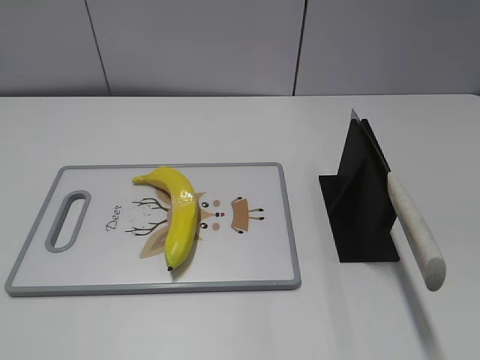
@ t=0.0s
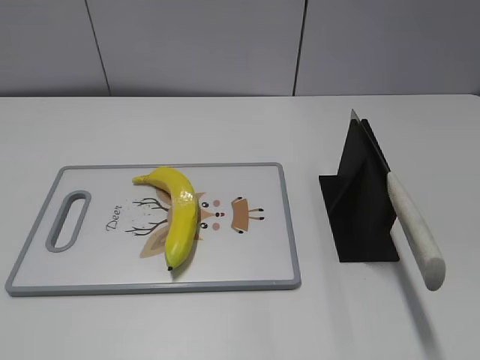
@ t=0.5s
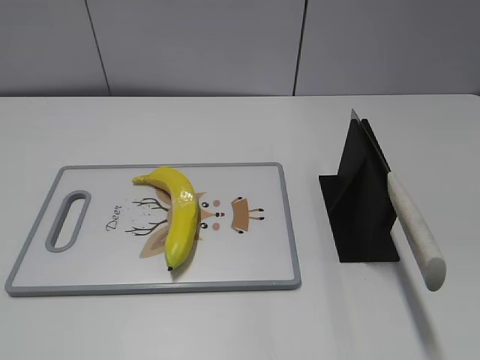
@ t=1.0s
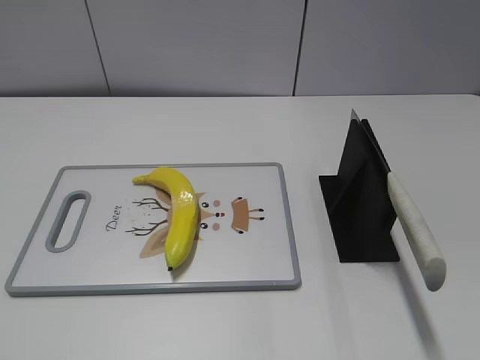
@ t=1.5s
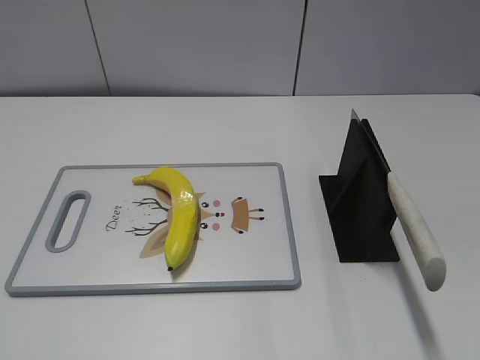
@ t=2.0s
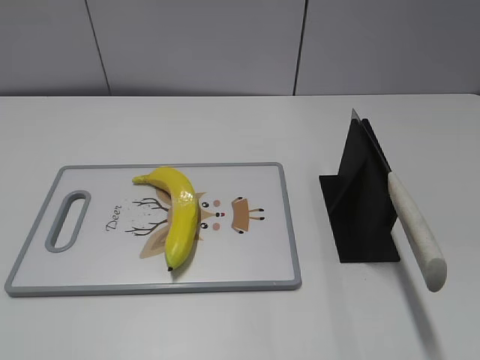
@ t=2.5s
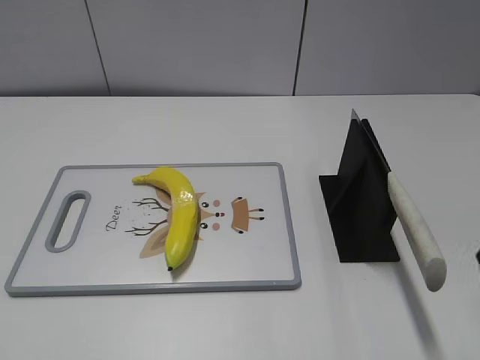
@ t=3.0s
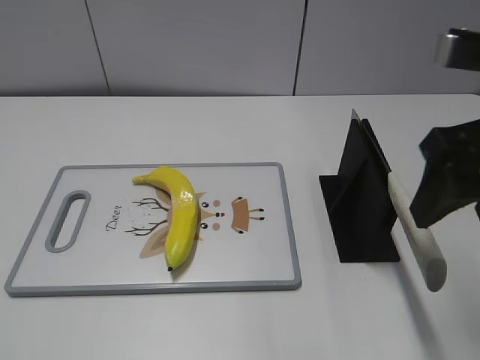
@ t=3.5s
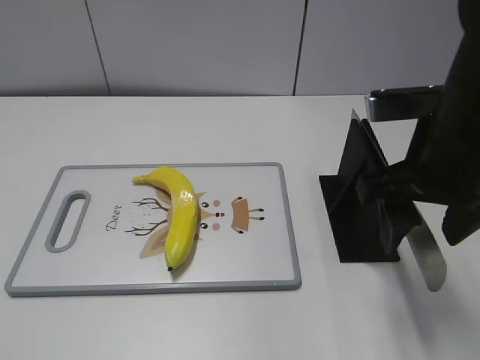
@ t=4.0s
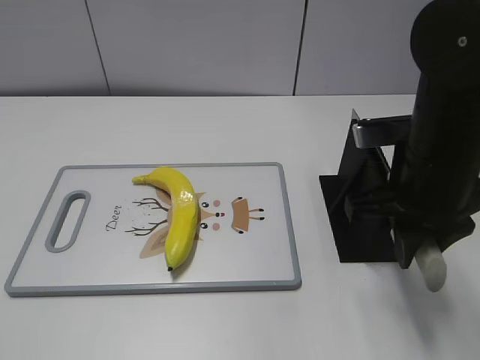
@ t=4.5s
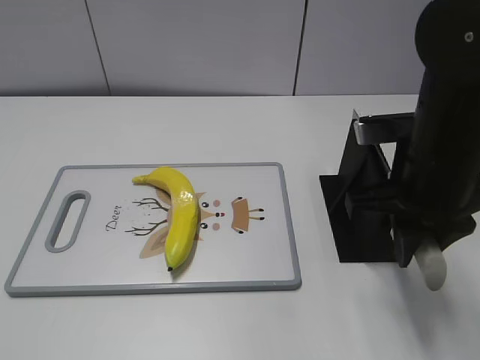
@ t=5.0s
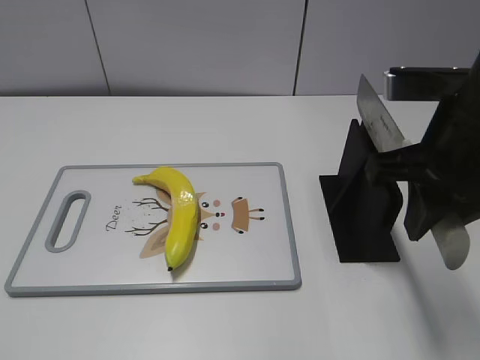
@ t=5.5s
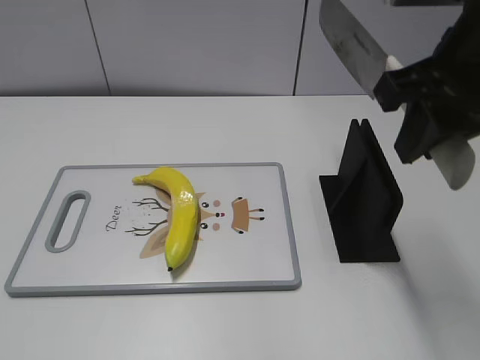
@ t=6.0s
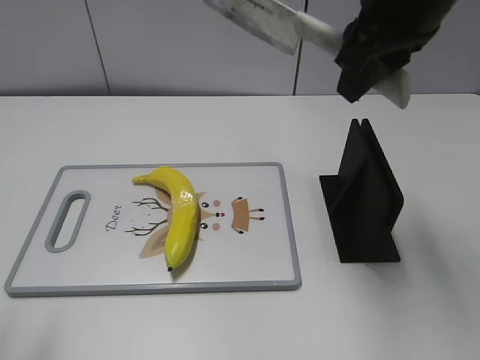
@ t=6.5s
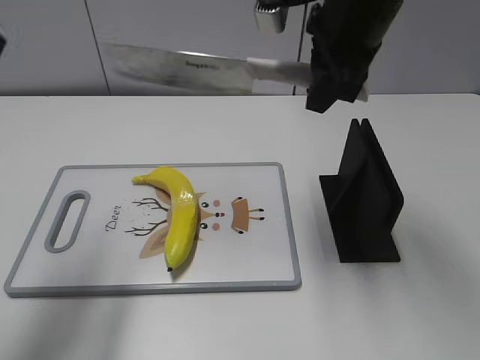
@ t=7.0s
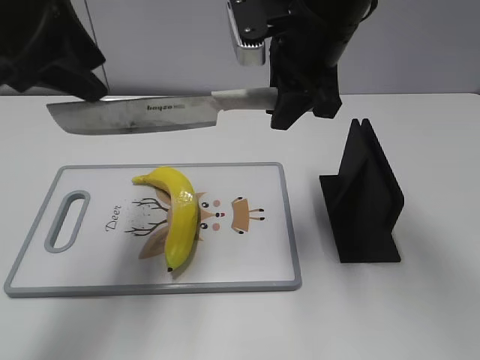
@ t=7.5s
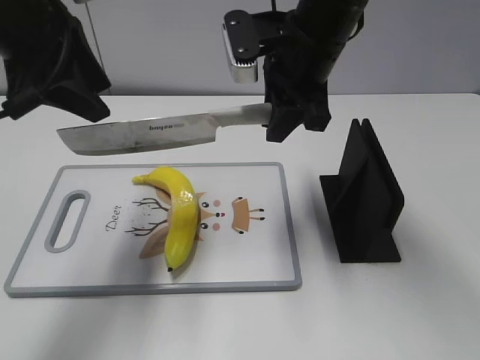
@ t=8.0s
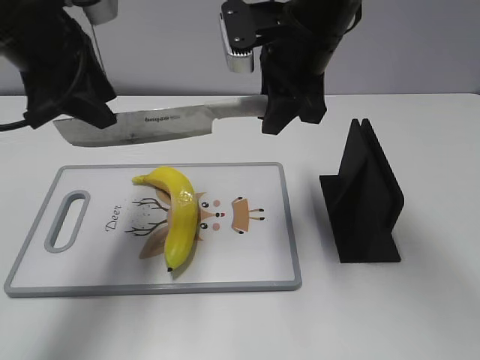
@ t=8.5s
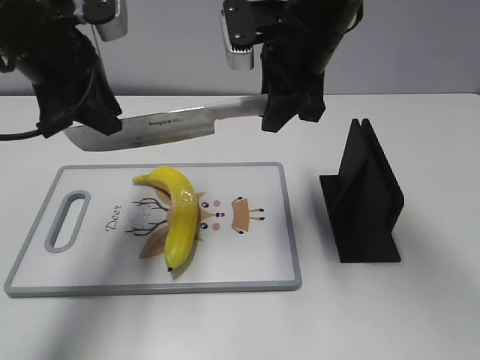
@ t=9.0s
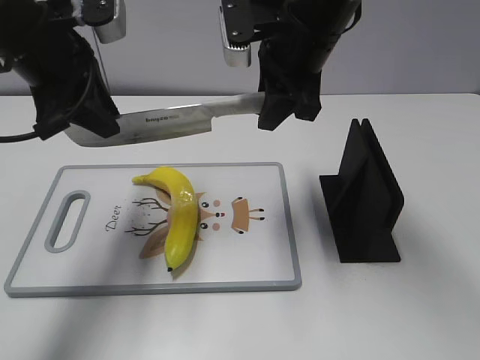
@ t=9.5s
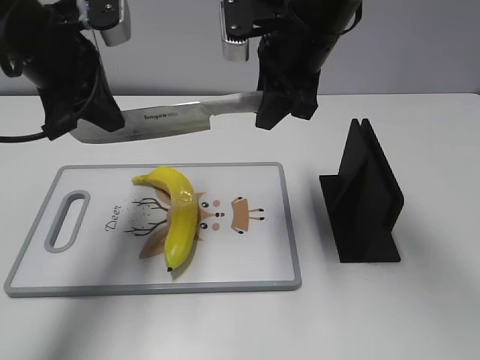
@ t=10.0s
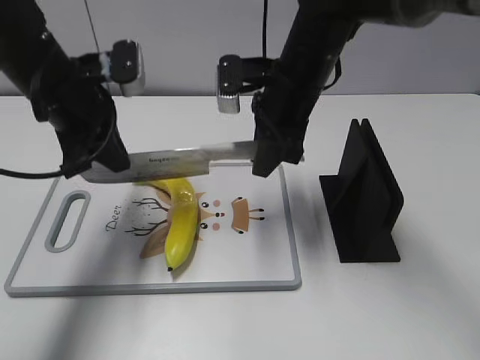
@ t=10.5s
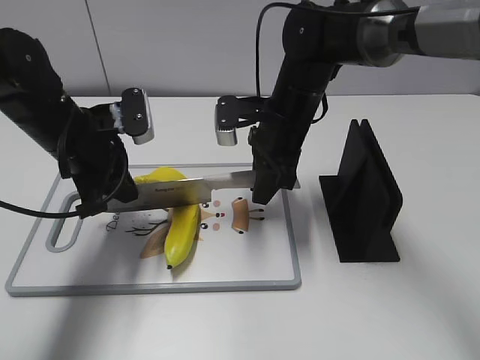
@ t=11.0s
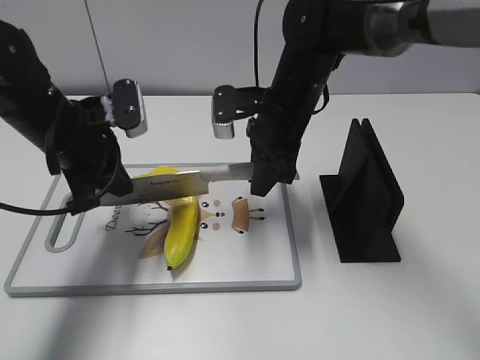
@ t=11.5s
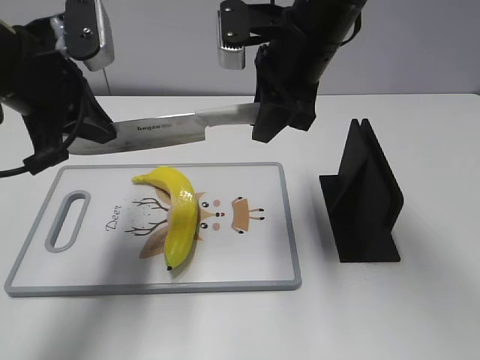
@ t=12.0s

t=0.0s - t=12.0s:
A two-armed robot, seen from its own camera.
Task of the whole recording: cut plastic banana.
Step, t=0.0s - t=6.0s: Grab the knife handle with your right hand.
t=2.0s - t=4.0s: The right gripper heads forward and to the left, covering some 25 cm.
t=4.0s - t=6.0s: The right gripper heads upward, covering roughly 10 cm, and closes its fingers.
t=6.0s - t=8.0s: The left gripper travels forward by approximately 30 cm. Meanwhile the right gripper moves forward, to the left and downward, about 20 cm.
t=8.0s - t=10.0s: The left gripper shifts by approximately 5 cm, and closes.
t=10.0s - t=12.0s: The right gripper goes downward and returns, approximately 15 cm each way; the left gripper goes downward and returns, some 10 cm each way.

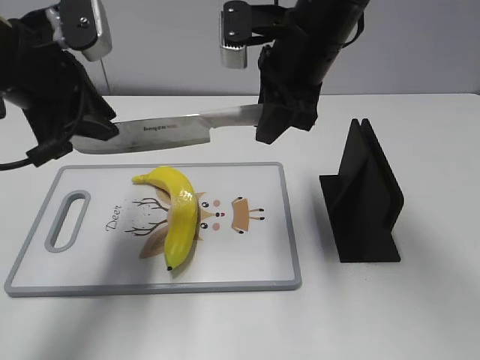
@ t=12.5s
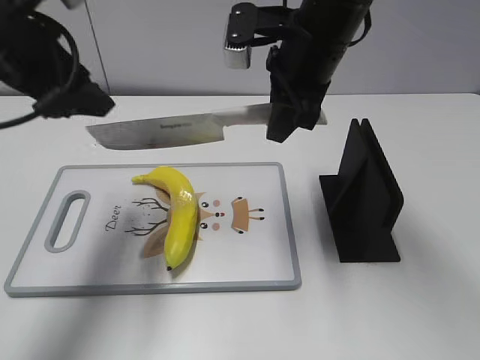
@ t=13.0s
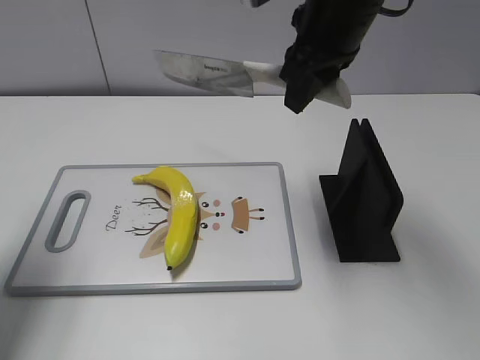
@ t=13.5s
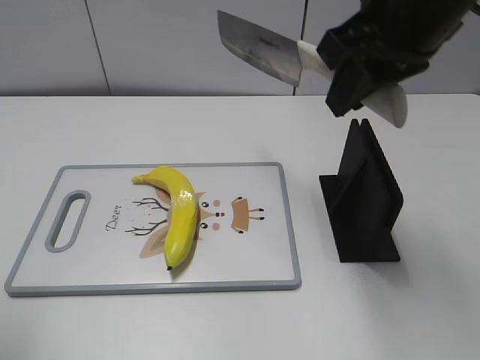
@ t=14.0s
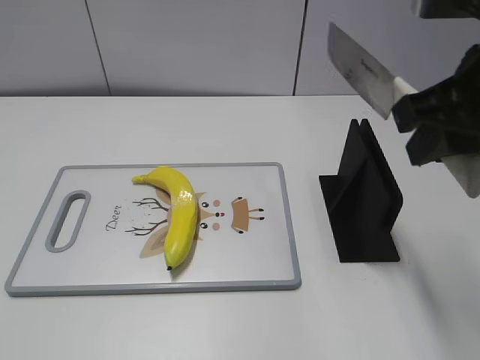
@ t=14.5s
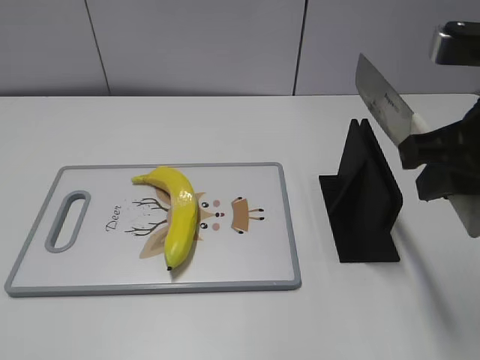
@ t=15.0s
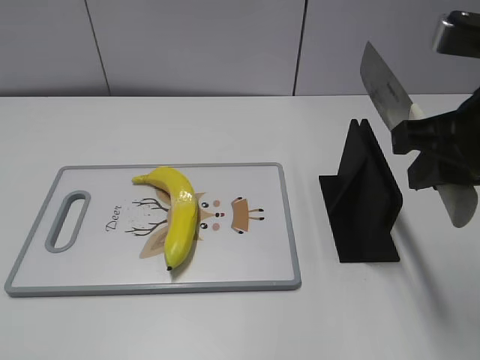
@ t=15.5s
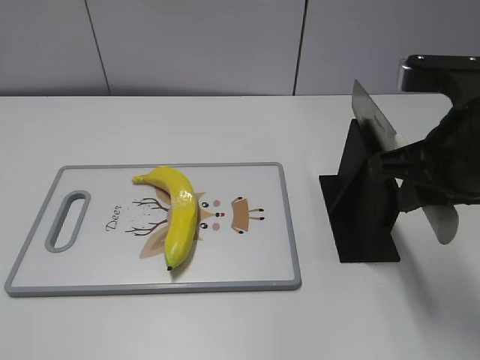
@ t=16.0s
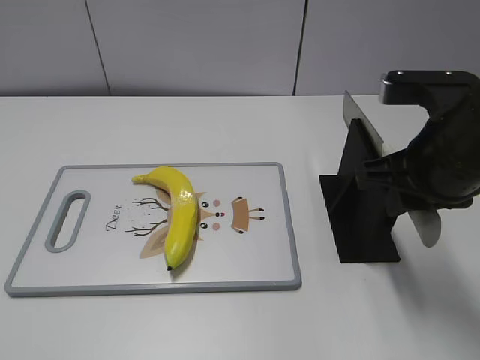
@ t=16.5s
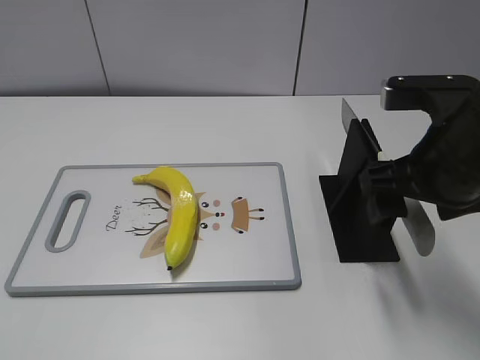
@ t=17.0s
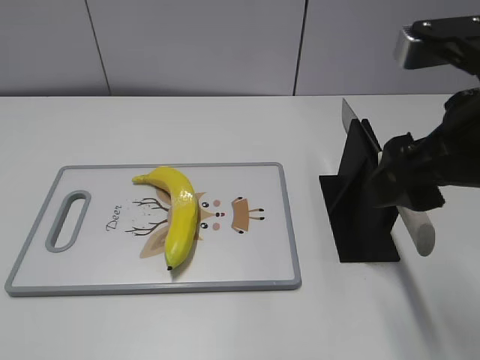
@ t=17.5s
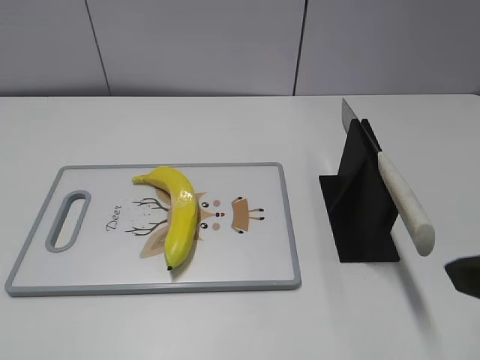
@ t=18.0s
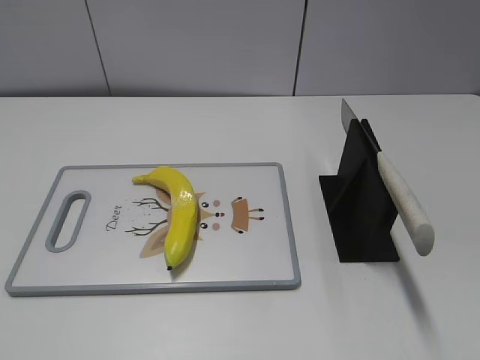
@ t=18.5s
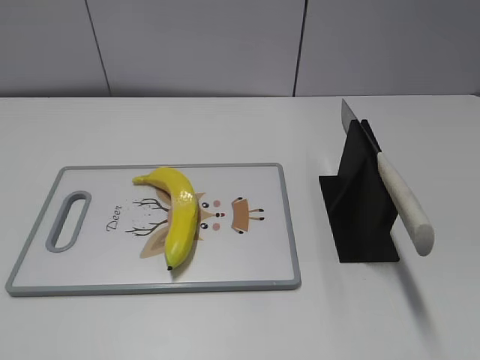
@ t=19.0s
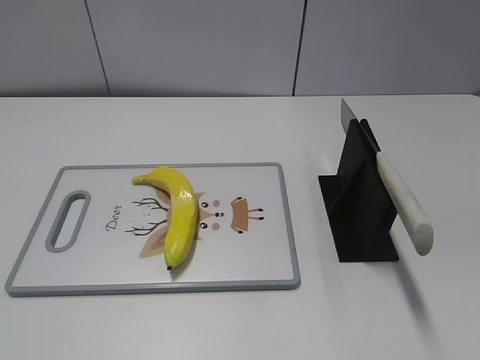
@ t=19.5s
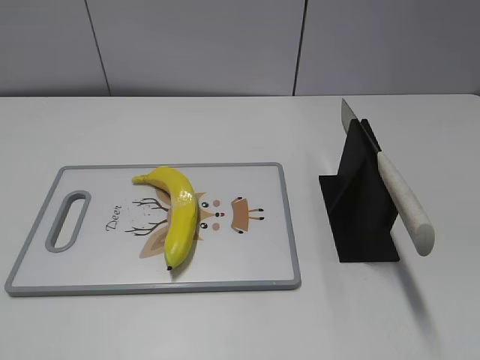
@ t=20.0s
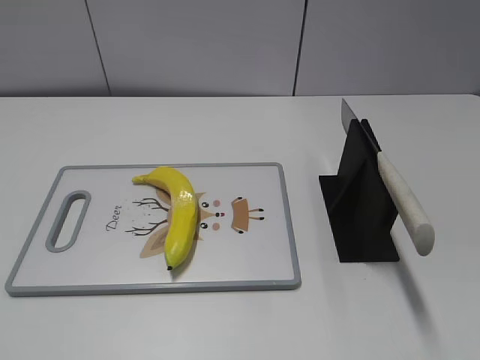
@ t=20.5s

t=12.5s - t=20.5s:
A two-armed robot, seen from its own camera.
Task of the whole recording: cut plastic banana.
Step, t=12.5s - t=13.5s: Cut the banana with your right hand.
Step, t=14.0s - t=15.0s: Secure the blade with your left hand.
Step, t=15.5s - t=20.5s: Place the knife on the storage rack with your right hand.
t=12.5s - t=14.5s: The left gripper is displaced backward by about 30 cm, and opens, while the right gripper moves backward and to the right, about 20 cm.
t=14.5s - t=16.5s: The right gripper shifts approximately 10 cm downward.
t=16.5s - t=18.5s: The right gripper heads backward and to the right, covering approximately 25 cm, and opens its fingers.

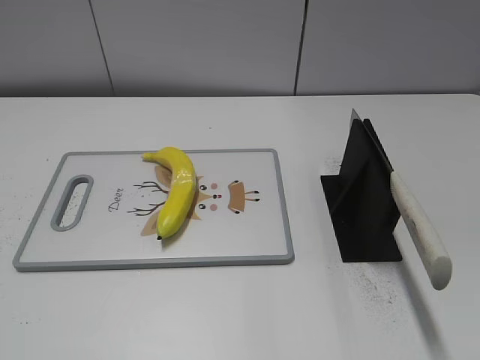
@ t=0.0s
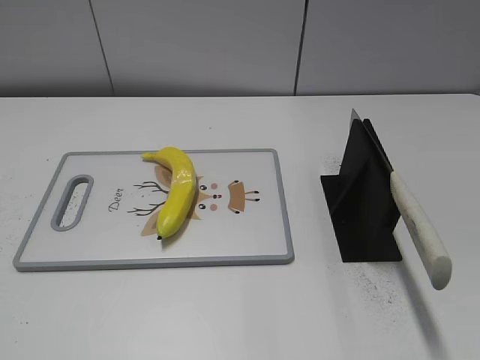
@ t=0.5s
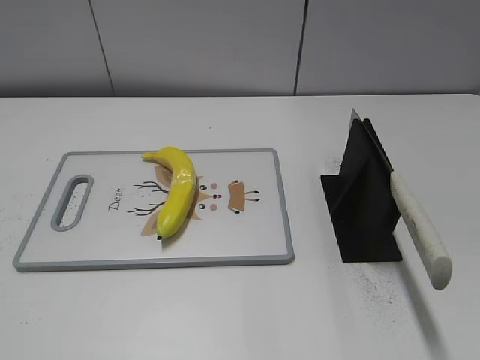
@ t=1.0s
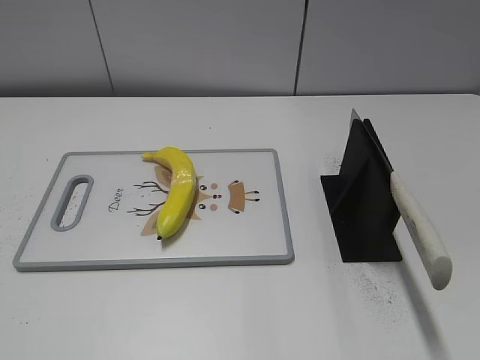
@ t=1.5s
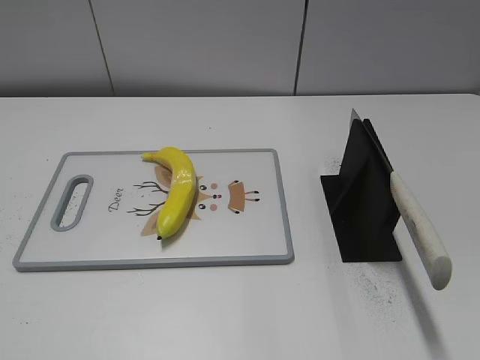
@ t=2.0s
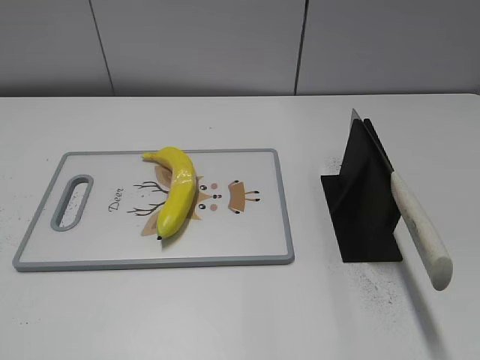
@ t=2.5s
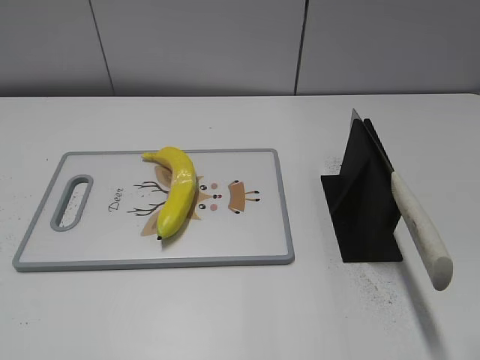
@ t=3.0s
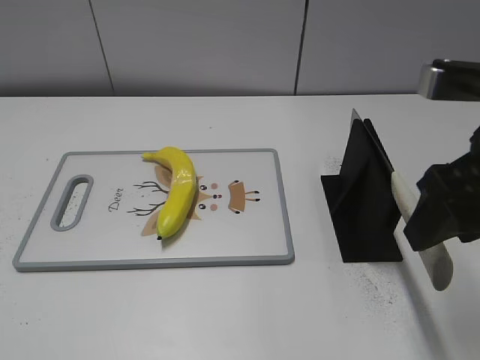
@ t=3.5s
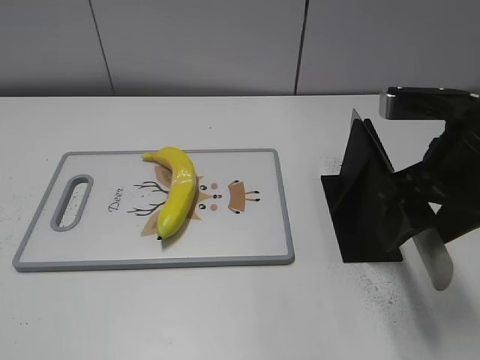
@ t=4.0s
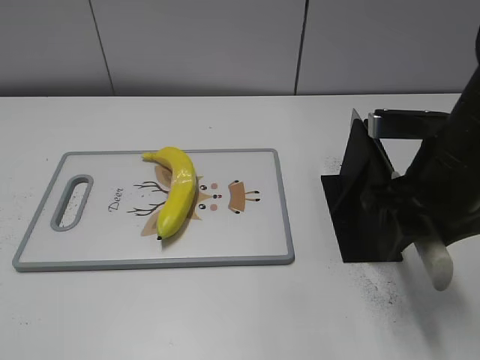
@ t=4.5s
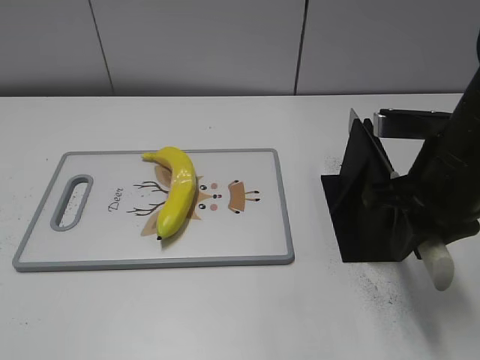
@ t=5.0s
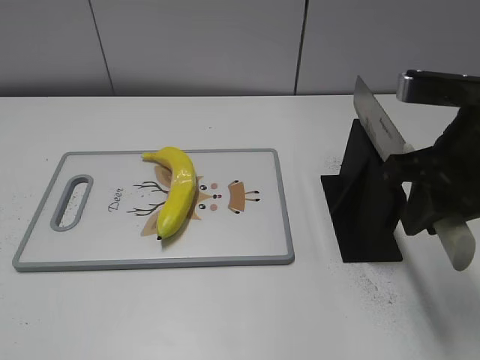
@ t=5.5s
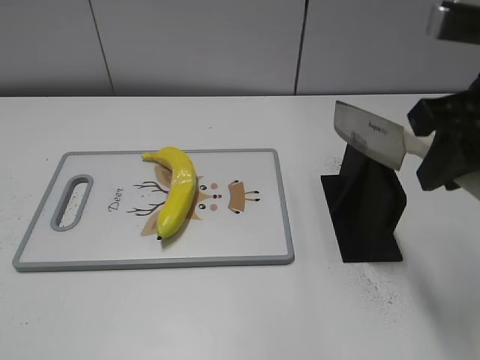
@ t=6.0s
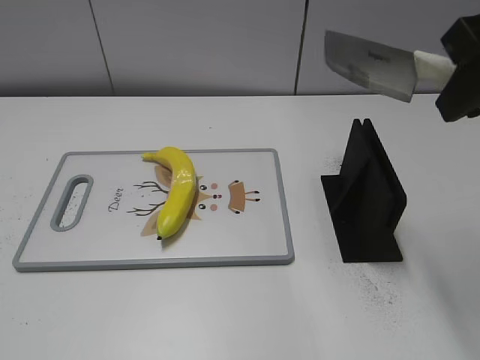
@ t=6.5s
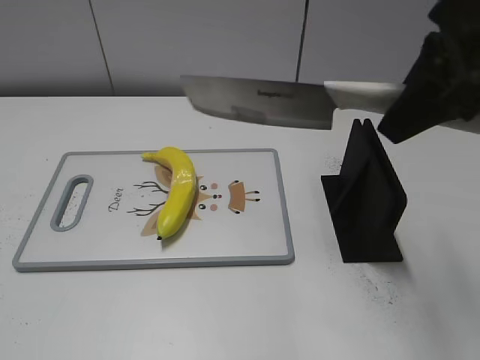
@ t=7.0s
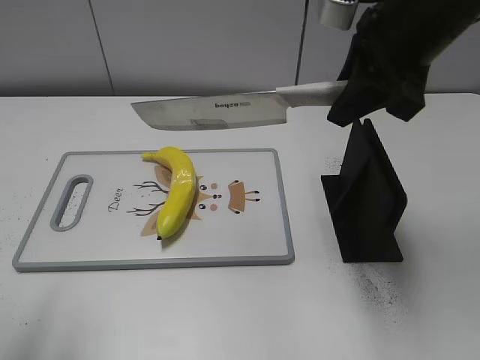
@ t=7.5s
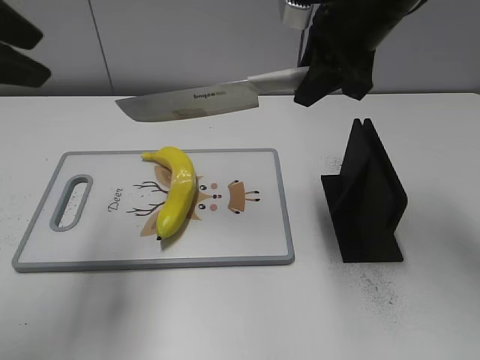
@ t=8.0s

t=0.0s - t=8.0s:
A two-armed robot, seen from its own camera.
Task of the whole recording: cut plastic banana.
Step, t=0.0s - t=5.5s: Grab the knife handle with your right hand.
t=2.0s - t=4.0s: The right gripper heads forward and to the left, covering some 25 cm.
t=4.0s - t=6.0s: The right gripper moves upward, approximately 5 cm, and closes.
t=6.0s - t=8.0s: The left gripper shifts approximately 25 cm forward. Meanwhile the right gripper travels forward and to the left by roughly 15 cm.
